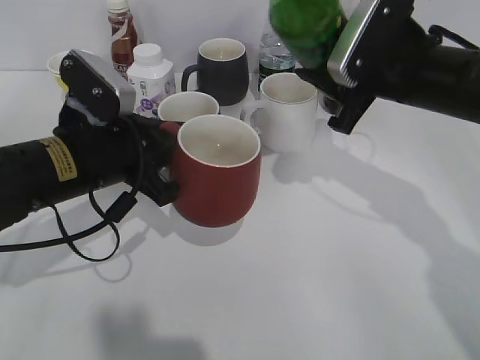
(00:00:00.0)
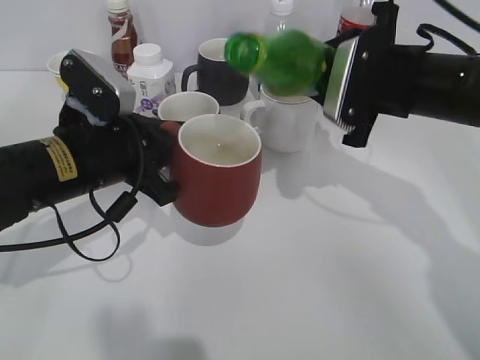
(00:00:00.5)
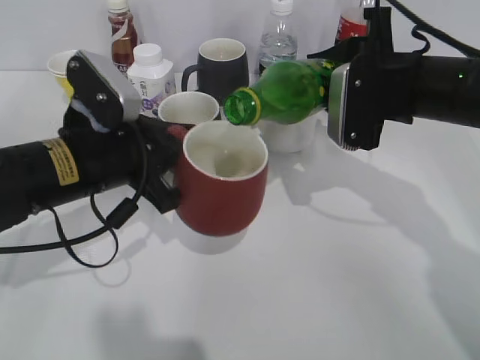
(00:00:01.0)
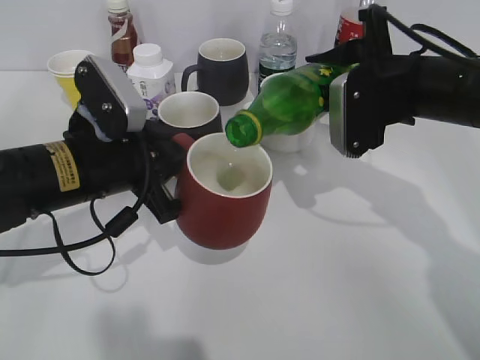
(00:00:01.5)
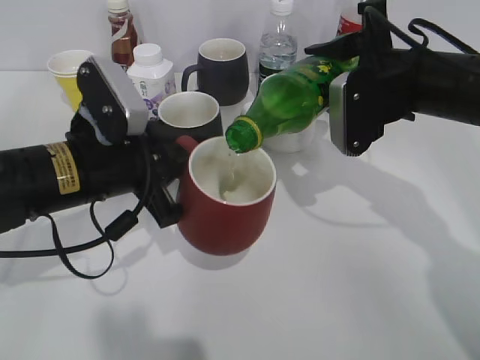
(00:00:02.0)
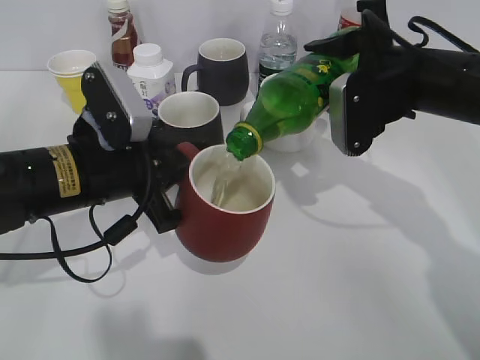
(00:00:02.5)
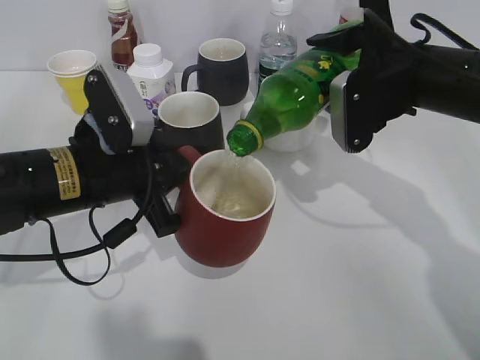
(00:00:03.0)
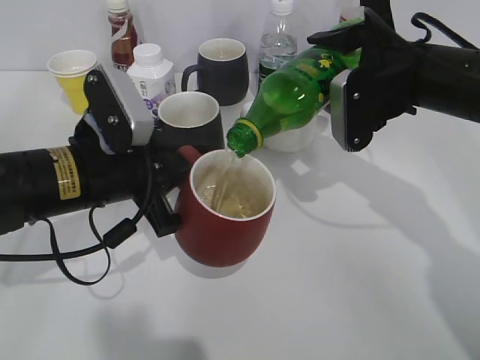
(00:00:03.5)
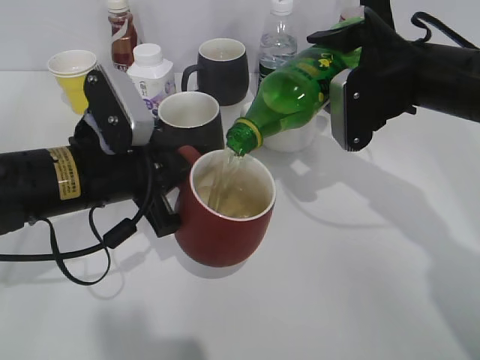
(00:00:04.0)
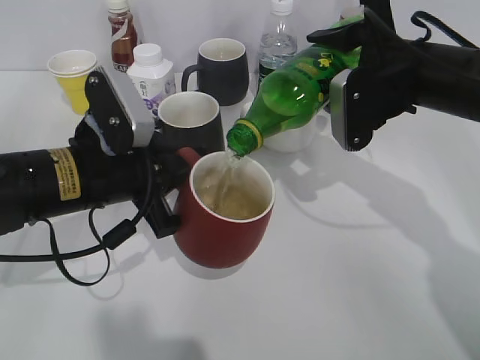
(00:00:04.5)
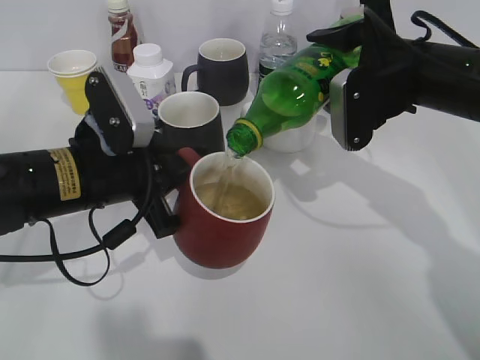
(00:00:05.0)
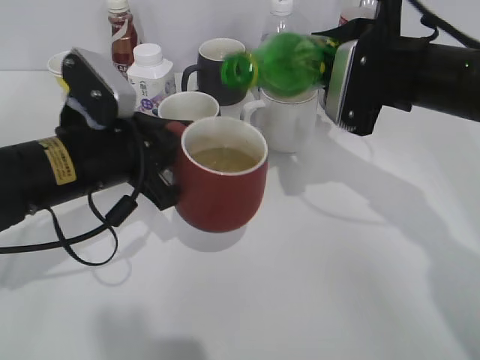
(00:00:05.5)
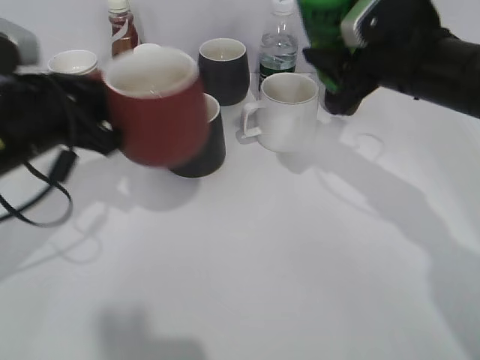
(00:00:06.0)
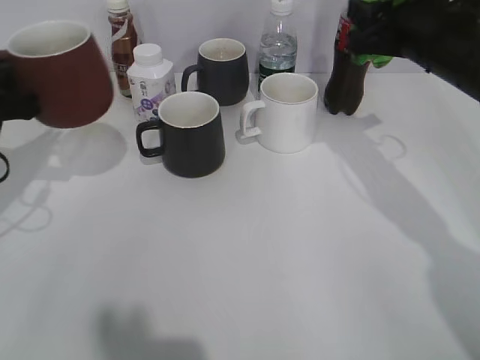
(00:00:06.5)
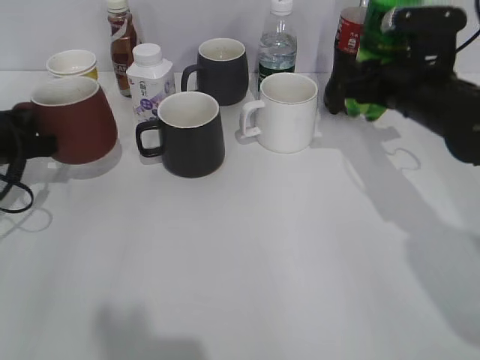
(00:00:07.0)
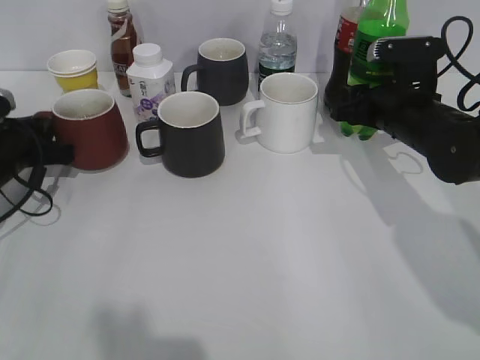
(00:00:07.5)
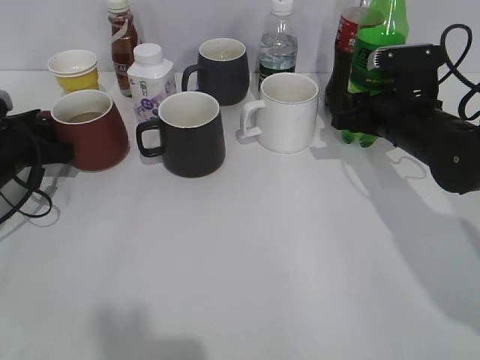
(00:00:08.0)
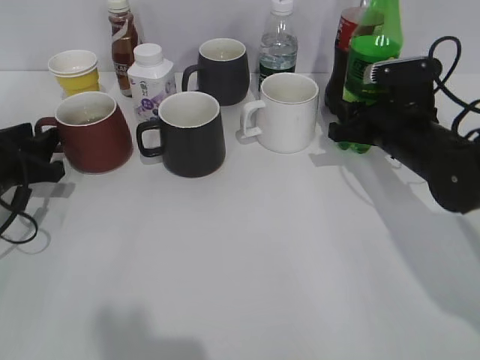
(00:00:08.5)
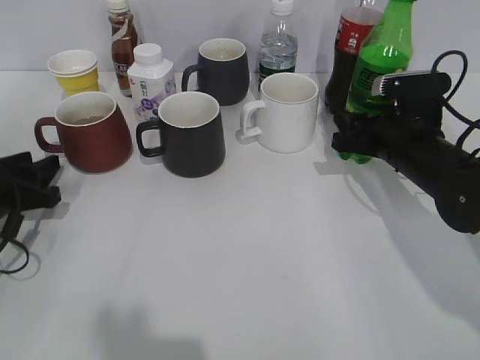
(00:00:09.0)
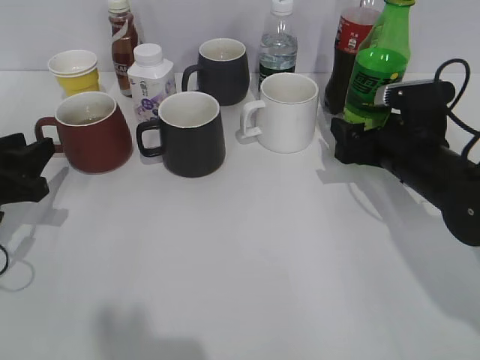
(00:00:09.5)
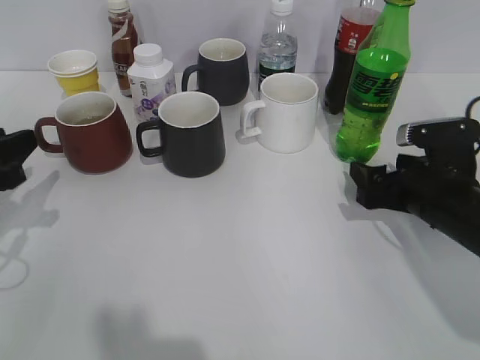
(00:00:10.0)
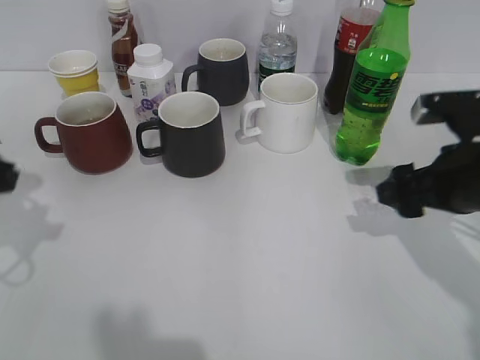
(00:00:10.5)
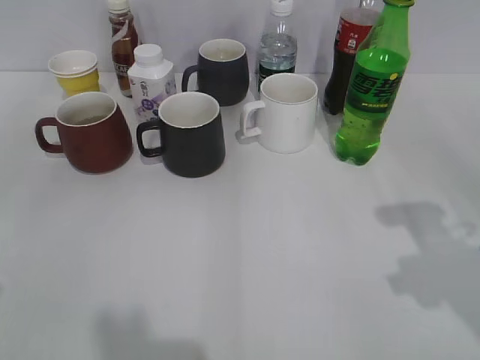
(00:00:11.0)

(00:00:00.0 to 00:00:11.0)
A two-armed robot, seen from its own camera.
Step, 00:00:00.0 - 00:00:05.5: Pour the sprite from bottle to cup with right gripper.
Step, 00:00:06.5 - 00:00:09.5: Place the sprite bottle on the table with right gripper.
00:00:02.0 - 00:00:03.5: The grippers move only a little.
00:00:05.5 - 00:00:07.5: The left gripper moves to the left, forward and downward, approximately 20 cm, while the right gripper is displaced downward by some 10 cm.
00:00:07.5 - 00:00:09.0: The left gripper goes some 5 cm backward, and opens.
00:00:09.0 - 00:00:11.0: The right gripper shifts roughly 20 cm backward and upward, and opens up, while the left gripper is displaced upward and backward by about 25 cm.

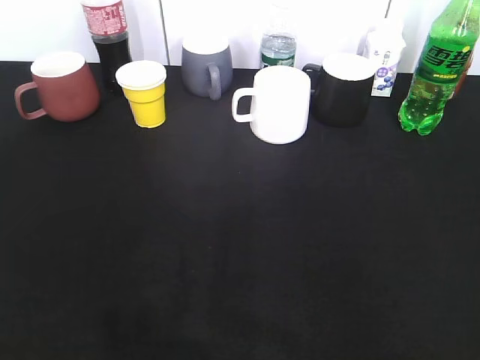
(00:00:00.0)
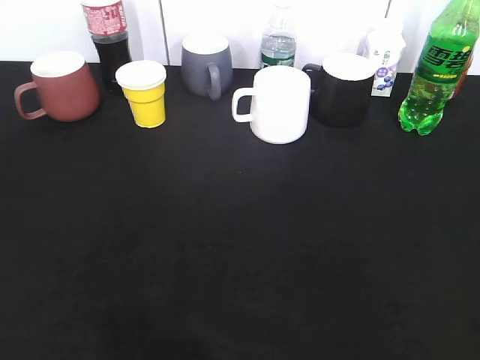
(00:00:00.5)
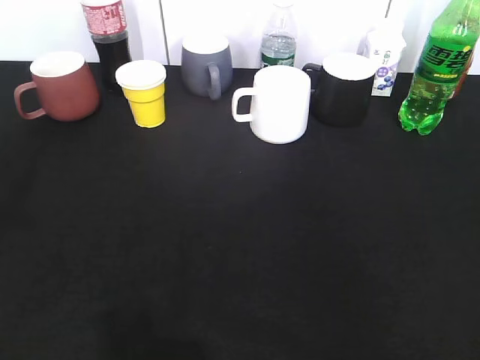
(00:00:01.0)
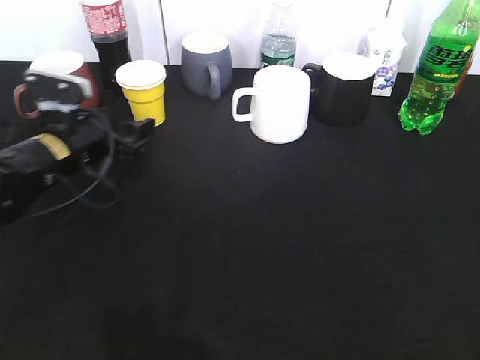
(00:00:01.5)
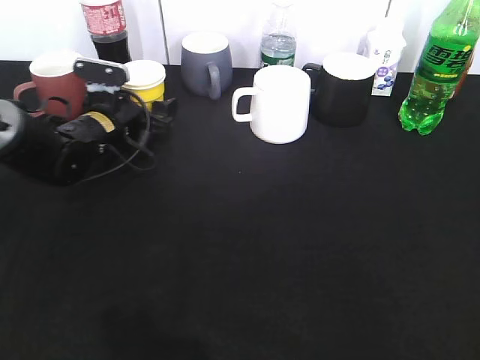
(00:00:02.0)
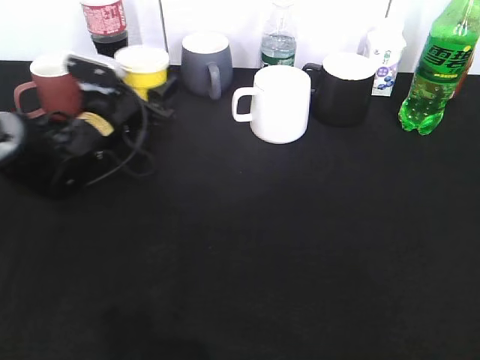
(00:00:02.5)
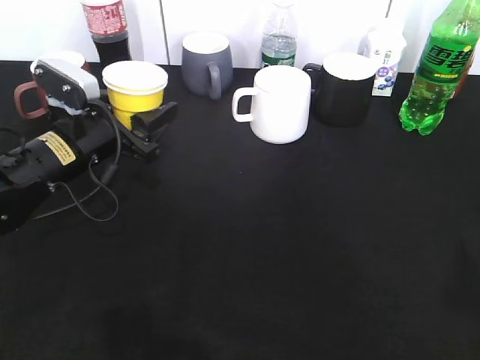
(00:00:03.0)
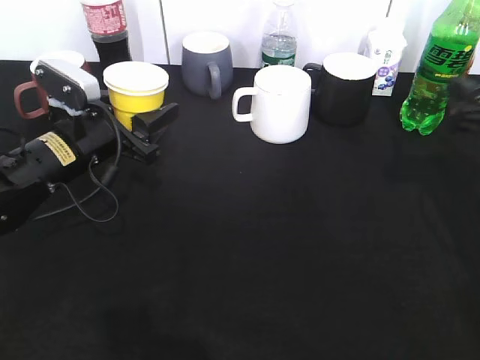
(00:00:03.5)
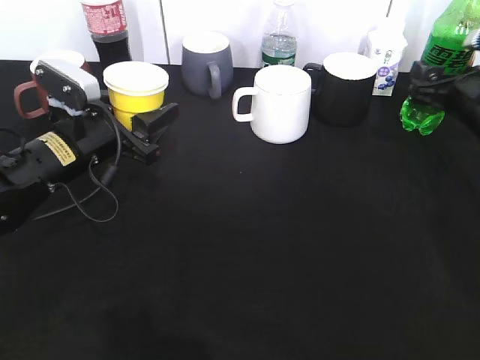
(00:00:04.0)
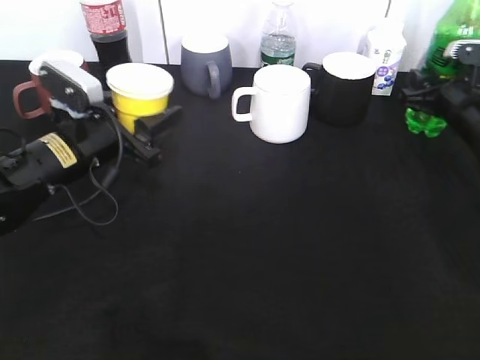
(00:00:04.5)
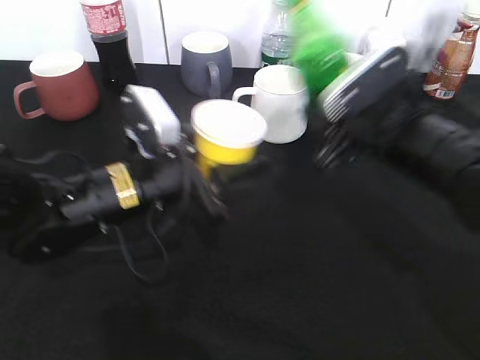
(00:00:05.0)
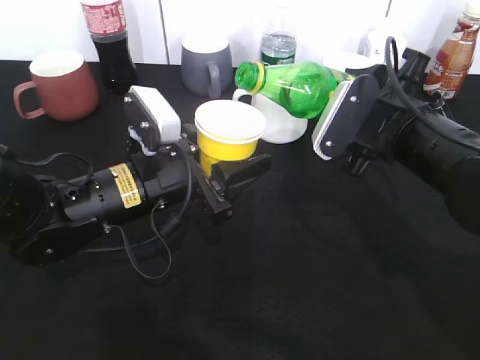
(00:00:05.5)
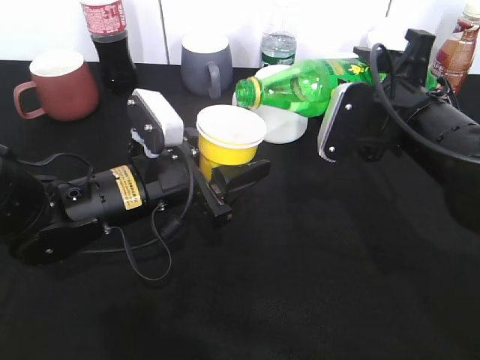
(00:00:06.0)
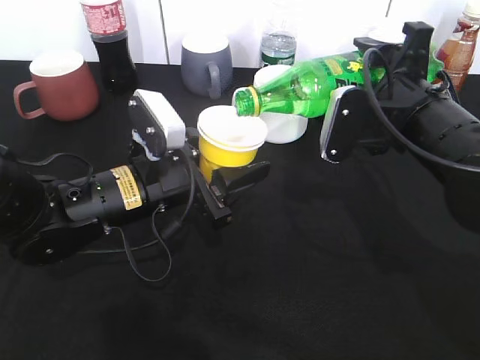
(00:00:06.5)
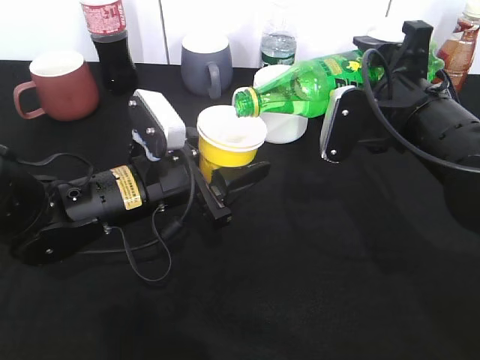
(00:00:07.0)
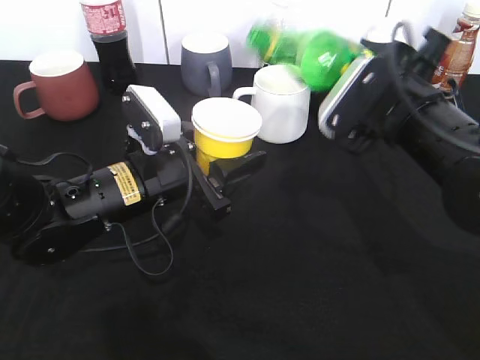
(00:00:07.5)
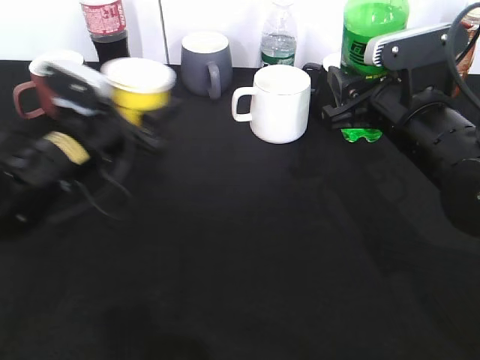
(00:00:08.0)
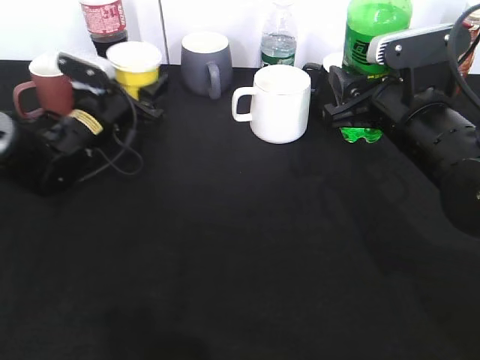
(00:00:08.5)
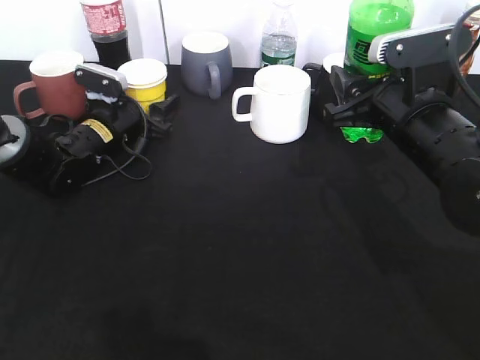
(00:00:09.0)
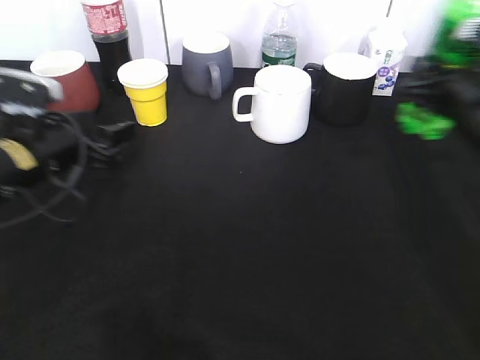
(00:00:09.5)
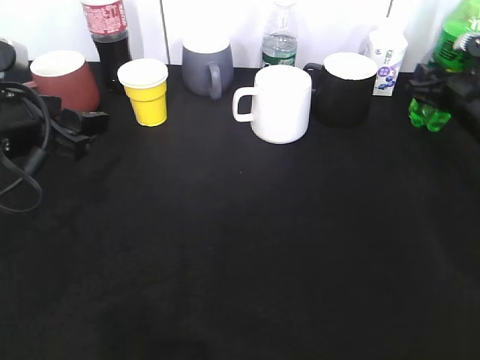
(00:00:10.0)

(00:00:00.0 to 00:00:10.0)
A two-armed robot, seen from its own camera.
Step, 00:00:00.0 - 00:00:02.0: Grasp the yellow paper cup with left gripper.
Step, 00:00:02.5 - 00:00:03.0: Lift the yellow paper cup with left gripper.
Step, 00:00:03.5 - 00:00:04.0: Grasp the bottle with sprite with right gripper.
Step, 00:00:04.5 - 00:00:07.0: Pour the sprite from bottle to cup with right gripper.
00:00:00.0 - 00:00:02.0: The left gripper goes approximately 50 cm forward and downward, and closes and opens again.
00:00:02.0 - 00:00:04.0: The left gripper goes roughly 10 cm backward, and closes; the right gripper travels forward by roughly 40 cm, and opens its fingers.
00:00:04.0 - 00:00:06.0: The right gripper heads to the left and backward, covering roughly 15 cm, and closes its fingers. Meanwhile the left gripper moves to the right and backward, roughly 10 cm.
00:00:06.0 - 00:00:08.0: The left gripper travels to the left and forward by roughly 10 cm.
00:00:08.0 - 00:00:10.0: The right gripper travels to the right, forward and downward by about 20 cm. The left gripper travels upward and backward by some 10 cm, and opens up.

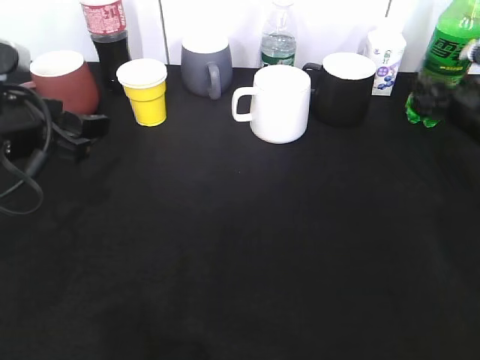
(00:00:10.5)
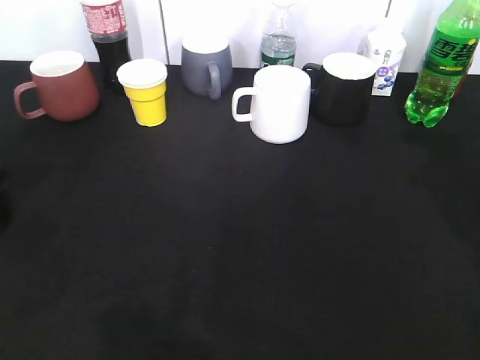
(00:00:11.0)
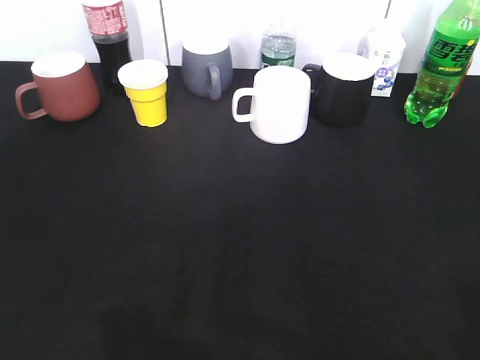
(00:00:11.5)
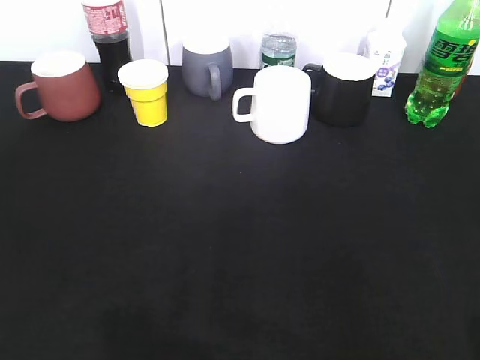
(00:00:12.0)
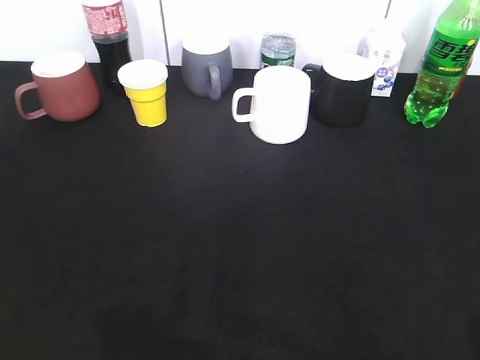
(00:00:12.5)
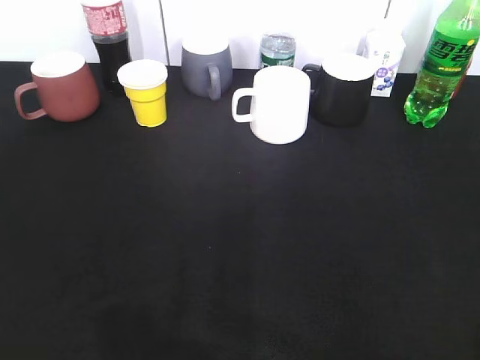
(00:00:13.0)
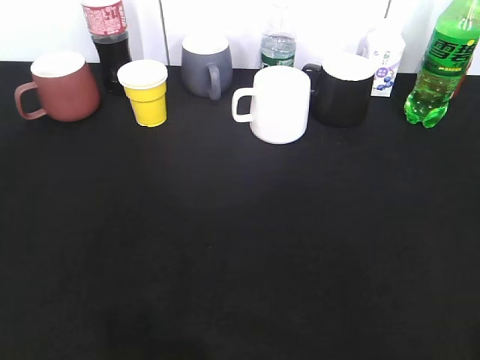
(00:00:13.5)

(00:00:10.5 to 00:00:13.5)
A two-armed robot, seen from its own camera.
00:00:10.5 - 00:00:12.0: The two grippers go about 30 cm backward.
